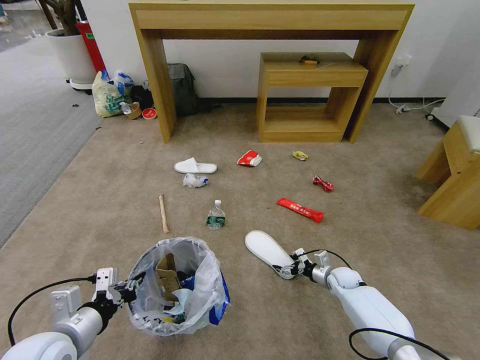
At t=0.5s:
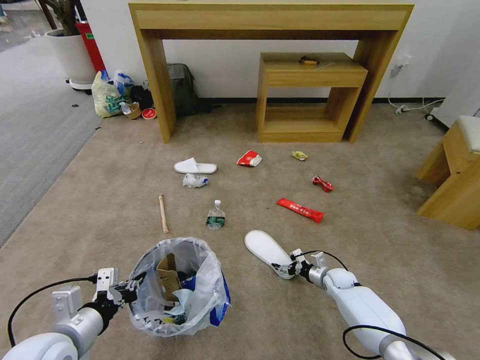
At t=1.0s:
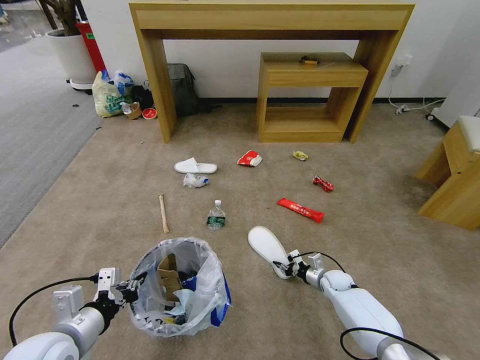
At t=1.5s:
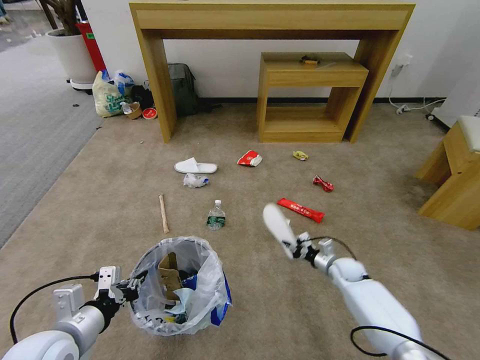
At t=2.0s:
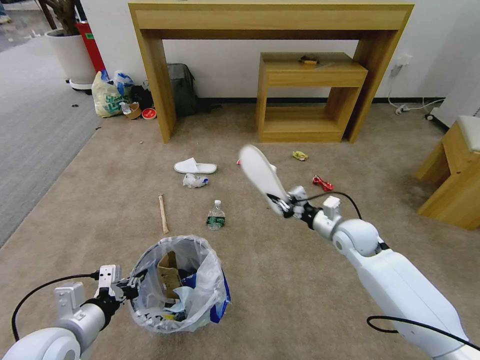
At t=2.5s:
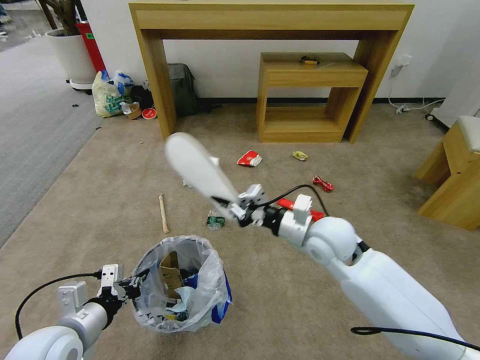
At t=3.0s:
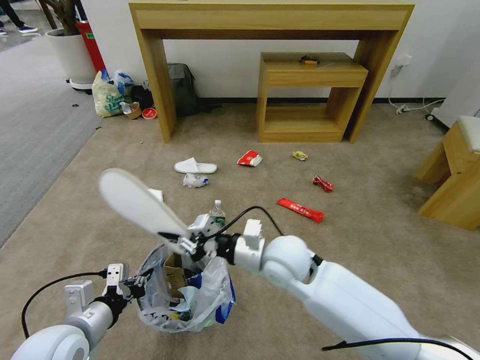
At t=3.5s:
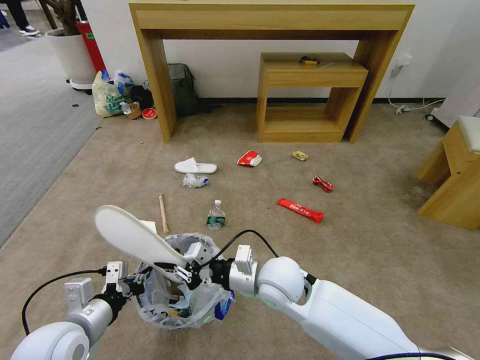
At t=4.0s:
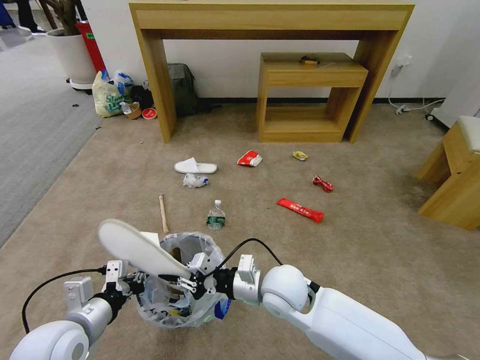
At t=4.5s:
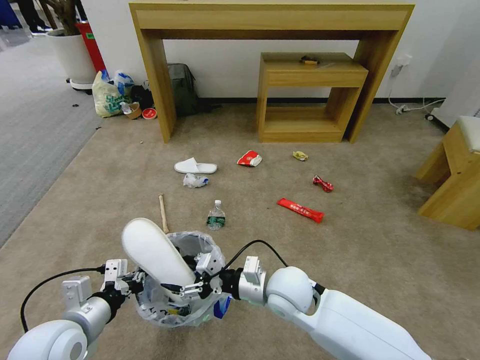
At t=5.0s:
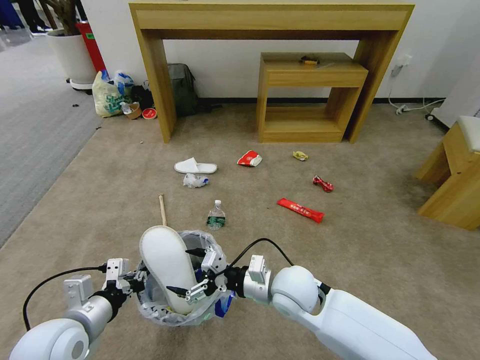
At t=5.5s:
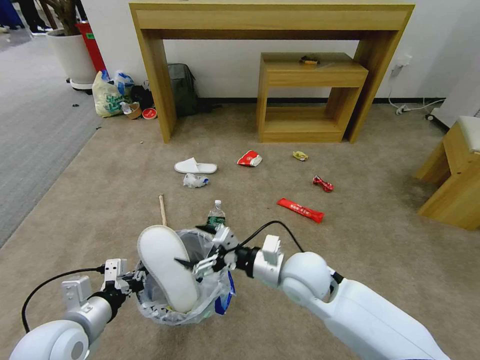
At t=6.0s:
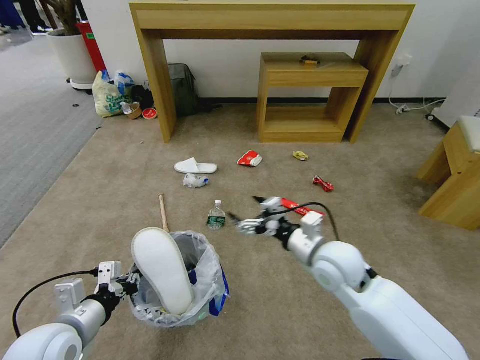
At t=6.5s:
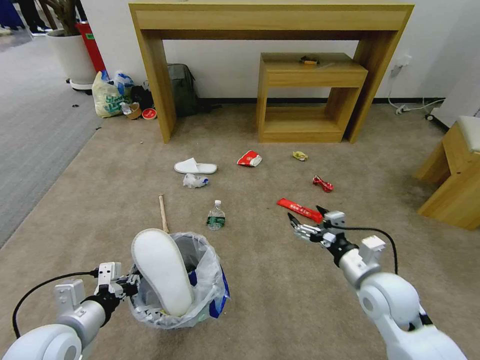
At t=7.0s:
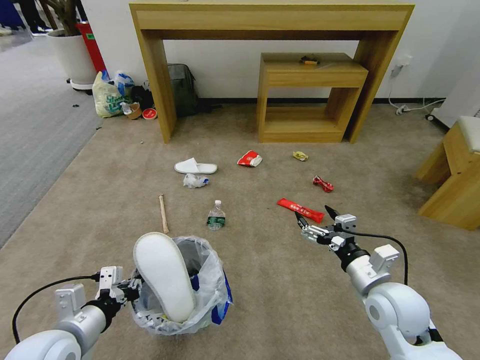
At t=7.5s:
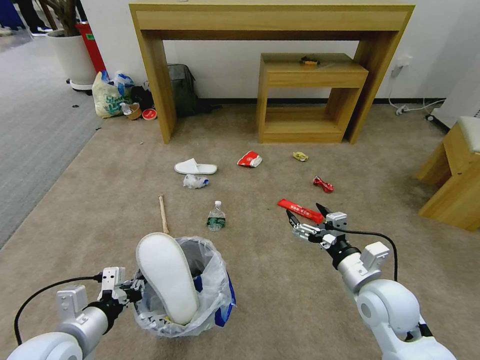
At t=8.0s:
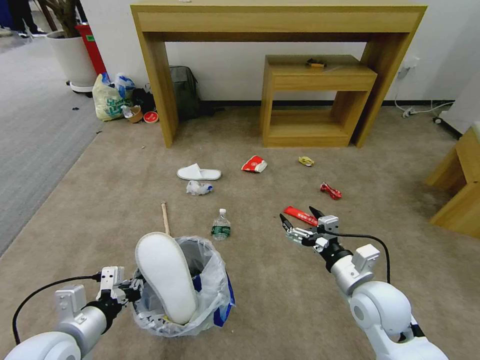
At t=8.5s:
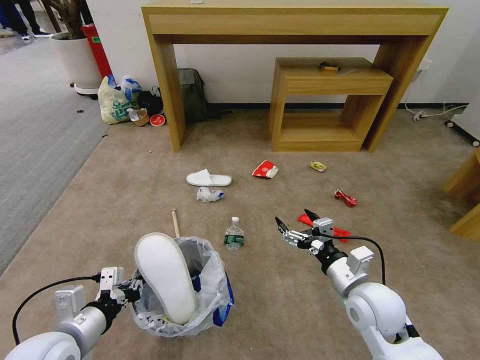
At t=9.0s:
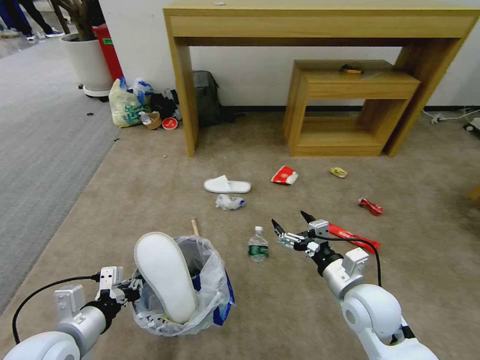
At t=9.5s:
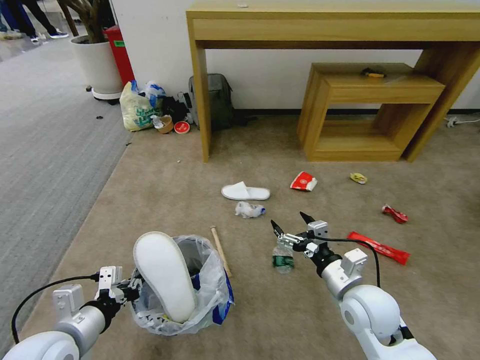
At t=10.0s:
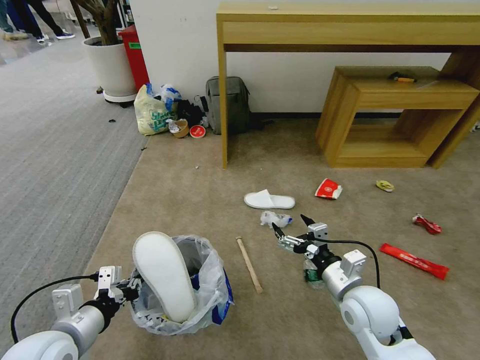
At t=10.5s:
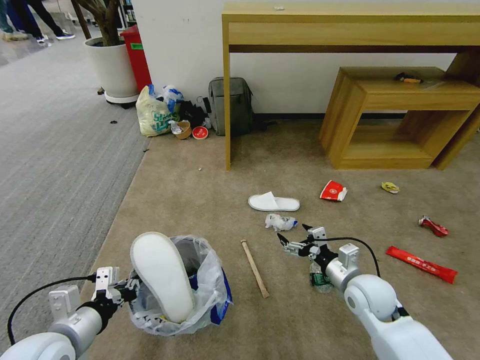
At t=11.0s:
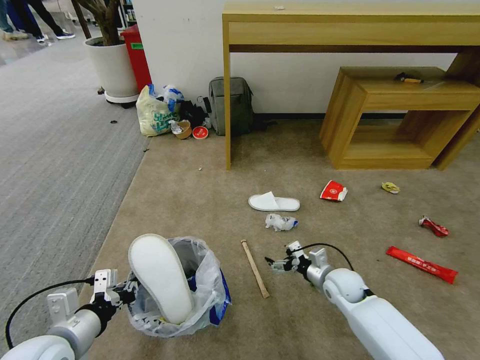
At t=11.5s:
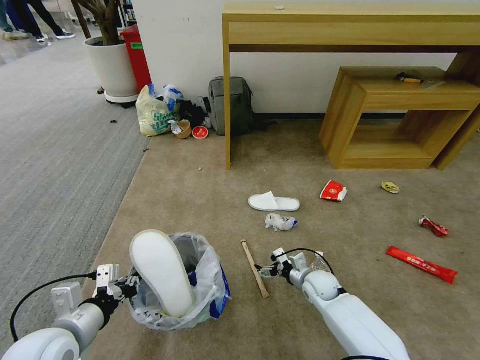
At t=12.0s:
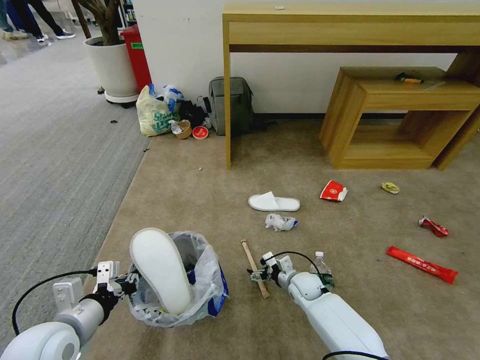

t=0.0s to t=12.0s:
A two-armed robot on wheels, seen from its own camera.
Task of the whole recording: Pick up the trash bin and place the garbage on the floor into it.
t=0.0s to t=2.0s: The right gripper heads upward, covering about 25 cm, and closes its fingers.
t=2.0s to t=4.0s: The right gripper travels to the left and backward by some 25 cm.
t=4.0s to t=6.0s: The right gripper shifts about 10 cm to the right, and opens its fingers.
t=6.0s to t=8.0s: The right gripper travels to the right and backward by roughly 10 cm.
t=10.0s to t=12.0s: The right gripper moves downward and forward, roughly 25 cm.

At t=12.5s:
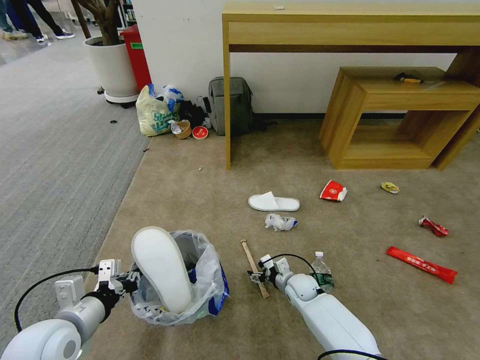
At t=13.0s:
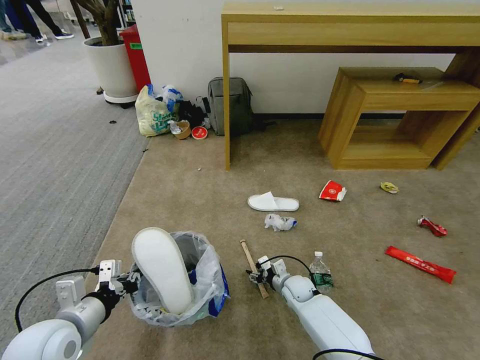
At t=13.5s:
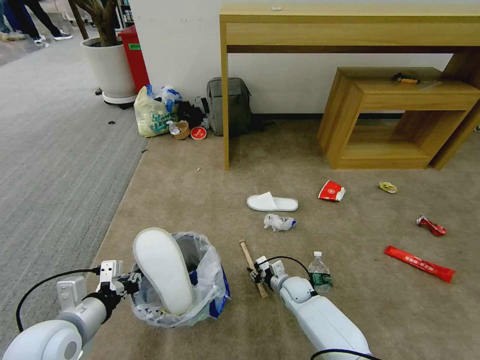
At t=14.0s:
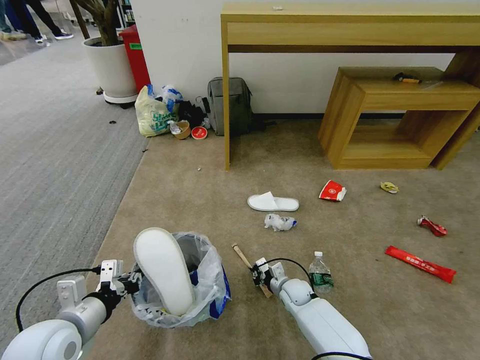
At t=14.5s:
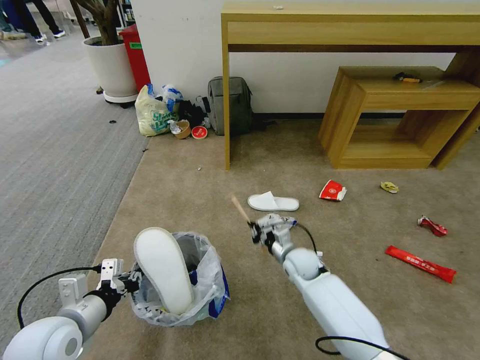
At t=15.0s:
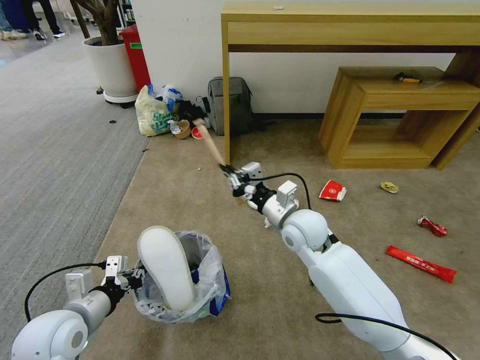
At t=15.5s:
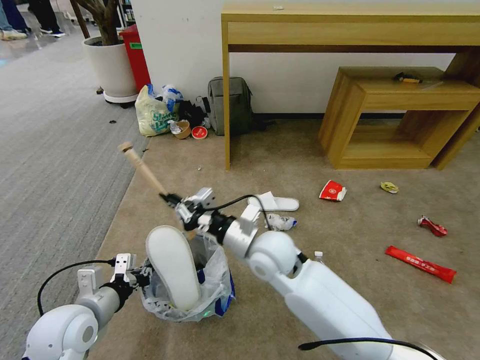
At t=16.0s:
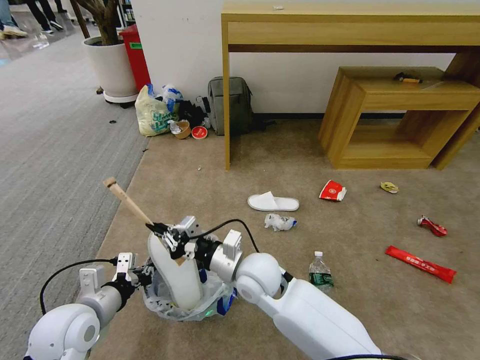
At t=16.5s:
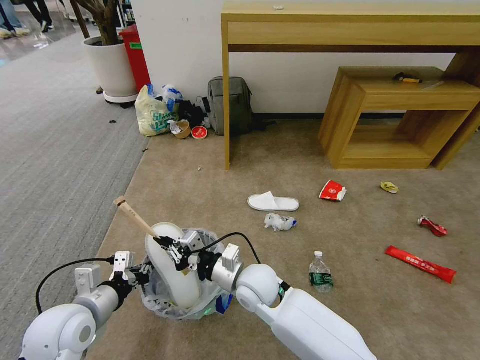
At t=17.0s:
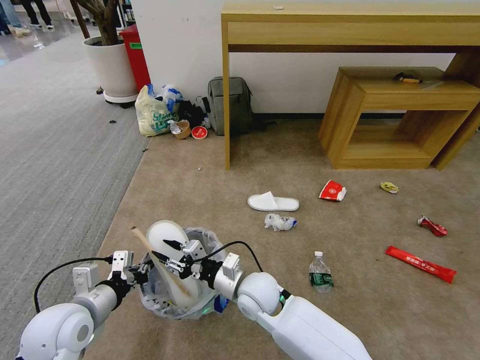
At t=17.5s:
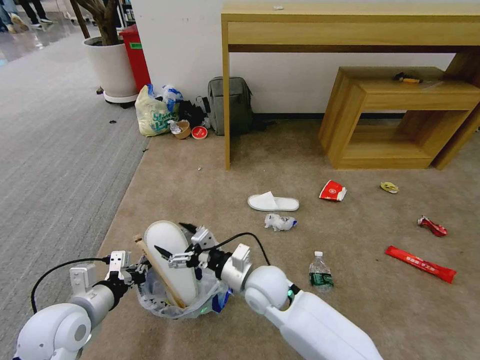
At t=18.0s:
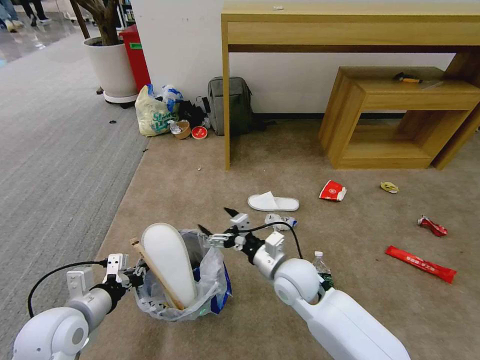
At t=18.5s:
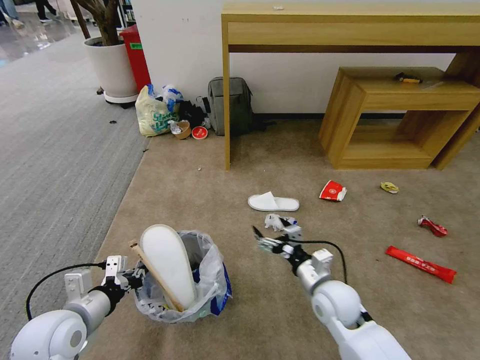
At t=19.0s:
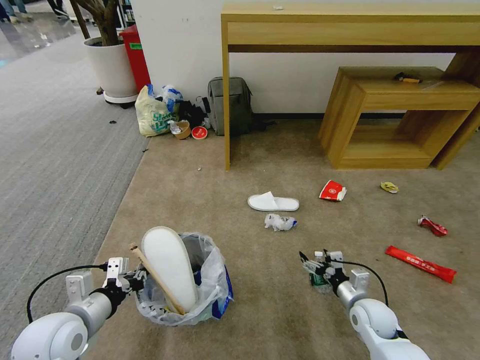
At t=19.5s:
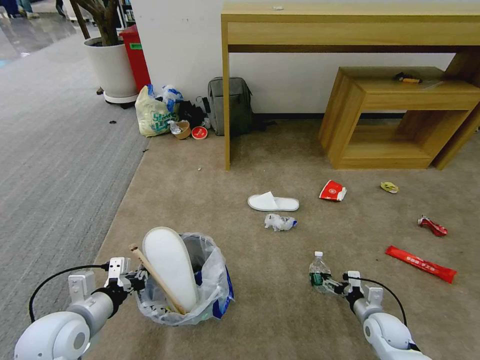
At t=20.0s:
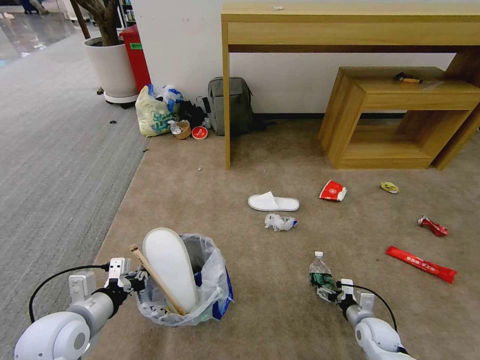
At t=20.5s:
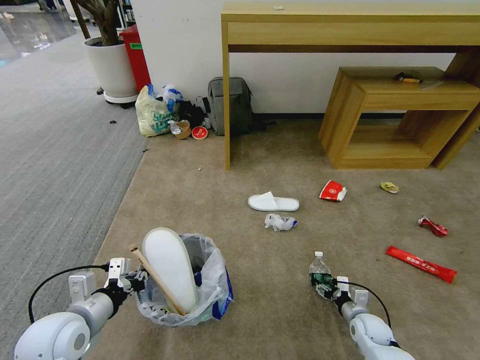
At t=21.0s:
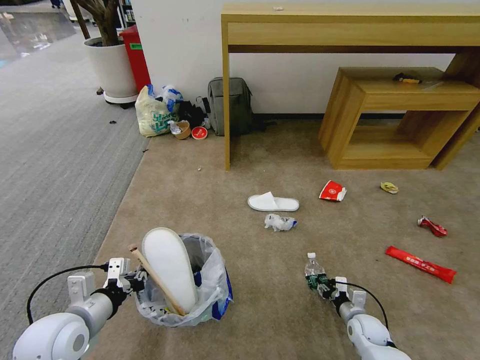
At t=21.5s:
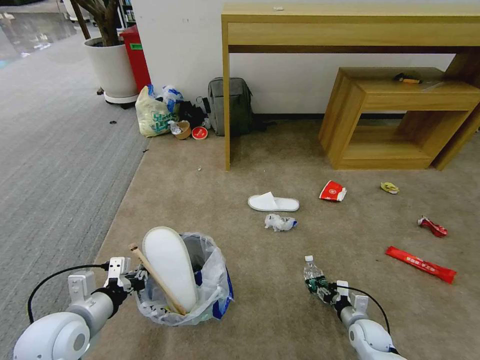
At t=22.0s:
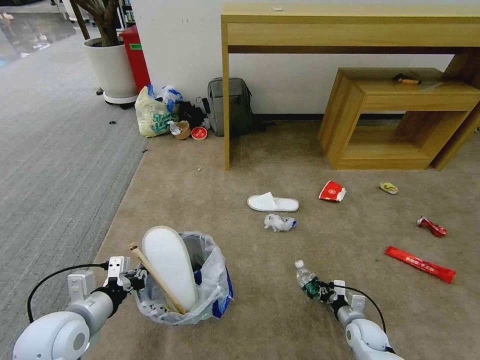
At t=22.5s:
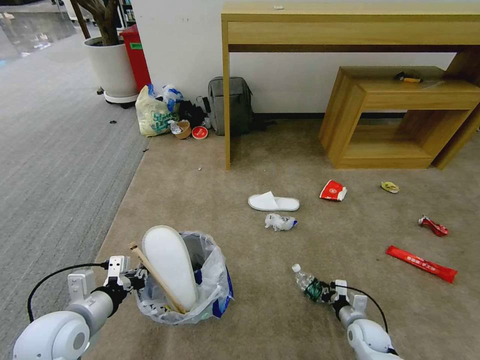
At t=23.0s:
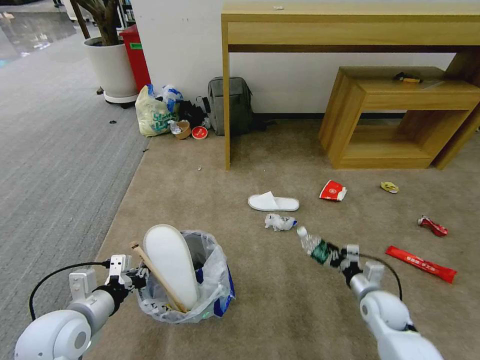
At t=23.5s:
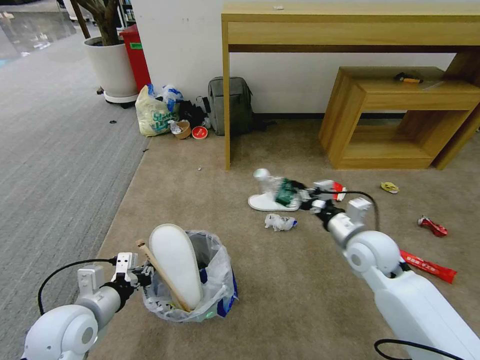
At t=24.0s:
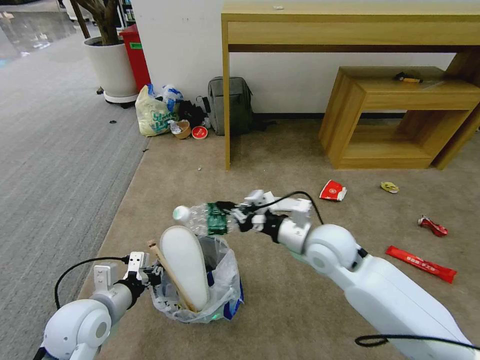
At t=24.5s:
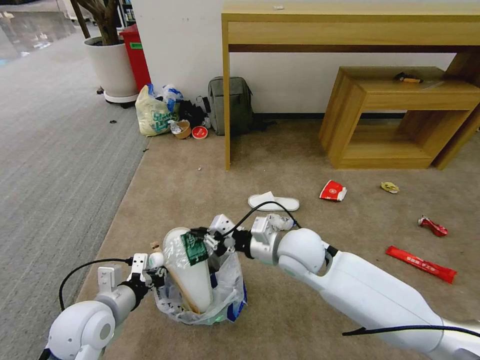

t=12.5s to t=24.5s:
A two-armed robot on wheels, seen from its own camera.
Task of the whole recording: Pick up the trash bin and place the garbage on the floor into it.
t=12.5s to t=14.5s: The right gripper is displaced upward by roughly 10 cm, and closes up.
t=14.5s to t=16.5s: The right gripper heads to the left, backward and upward, covering roughly 20 cm.
t=16.5s to t=18.5s: The right gripper shifts about 20 cm to the right, and opens.
t=18.5s to t=20.5s: The right gripper shifts about 25 cm downward and to the right.
t=20.5s to t=22.5s: The right gripper closes its fingers.
t=22.5s to t=24.5s: The right gripper shifts some 40 cm upward and to the left.

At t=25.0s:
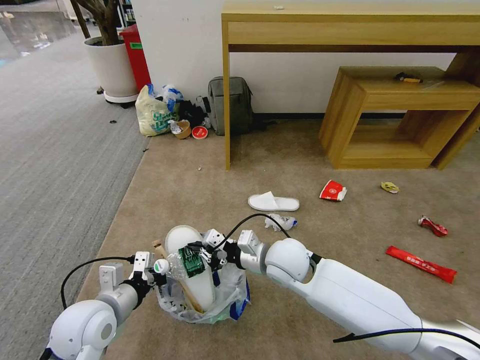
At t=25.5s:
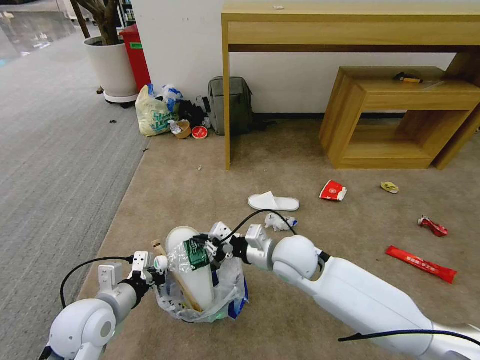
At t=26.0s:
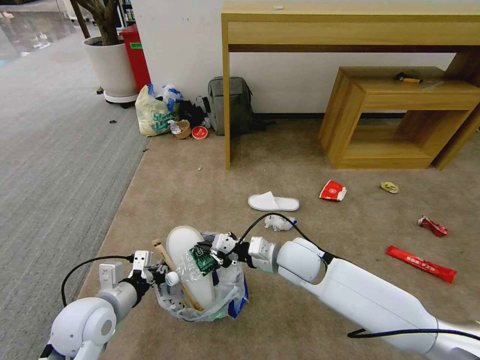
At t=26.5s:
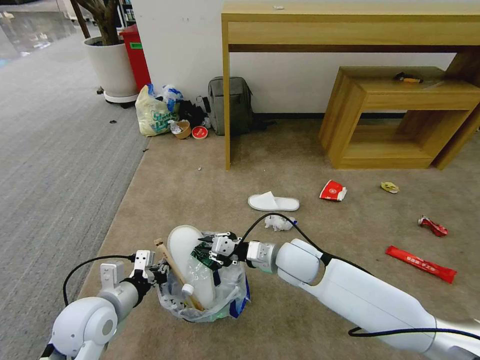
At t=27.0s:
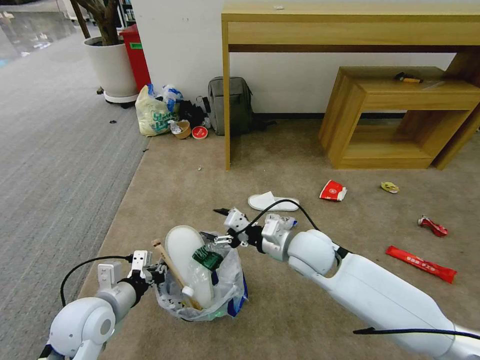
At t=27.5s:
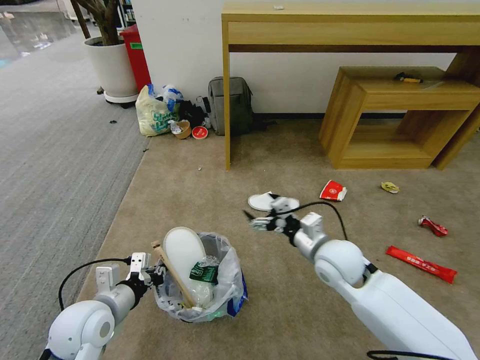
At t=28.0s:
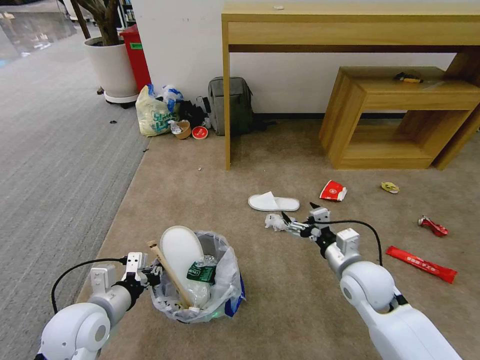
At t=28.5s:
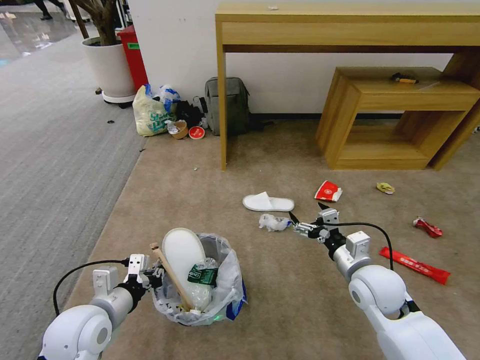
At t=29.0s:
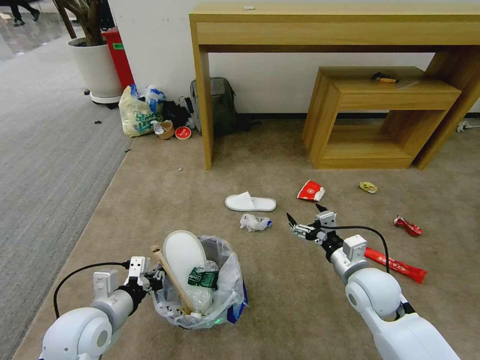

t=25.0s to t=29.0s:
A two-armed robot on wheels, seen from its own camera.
Task of the whole recording: Pick up the trash bin and place the garbage on the floor into it.
t=25.0s to t=27.0s: The right gripper ends up roughly 5 cm from where it was, and opens its fingers.
t=27.0s to t=29.0s: The right gripper shifts roughly 15 cm to the right and backward.
